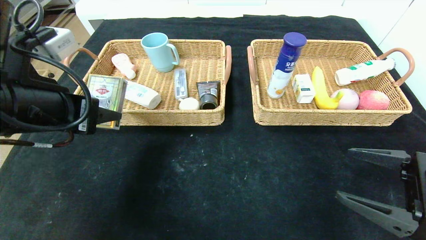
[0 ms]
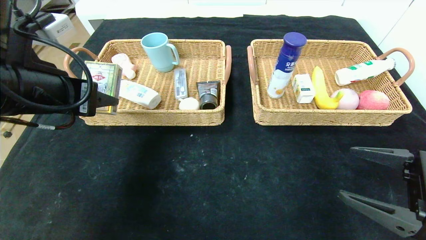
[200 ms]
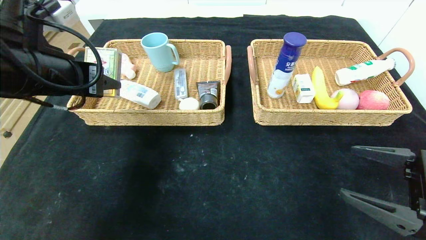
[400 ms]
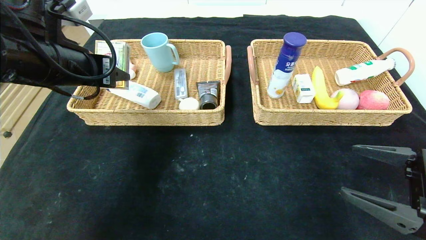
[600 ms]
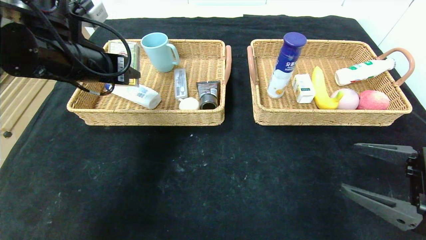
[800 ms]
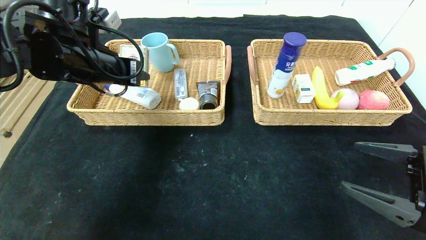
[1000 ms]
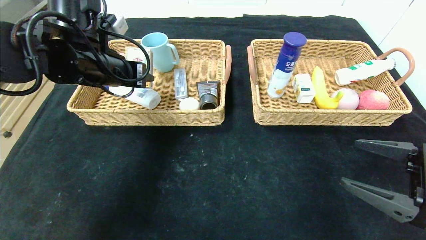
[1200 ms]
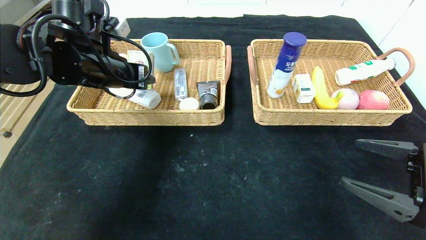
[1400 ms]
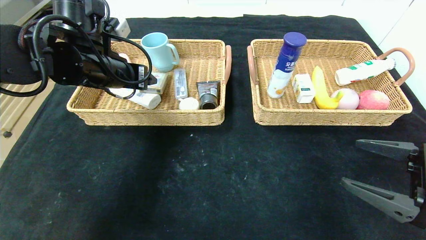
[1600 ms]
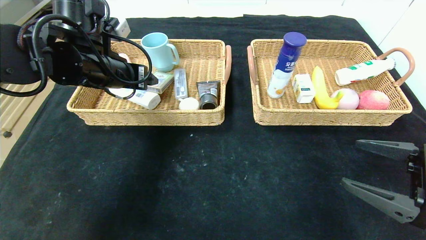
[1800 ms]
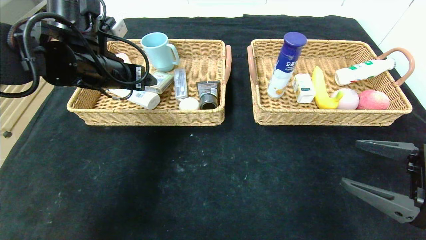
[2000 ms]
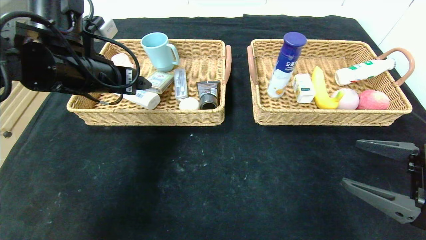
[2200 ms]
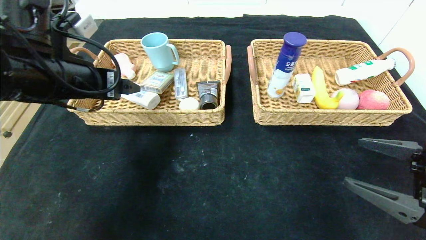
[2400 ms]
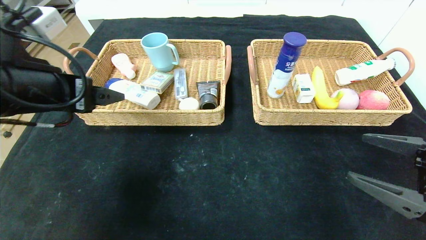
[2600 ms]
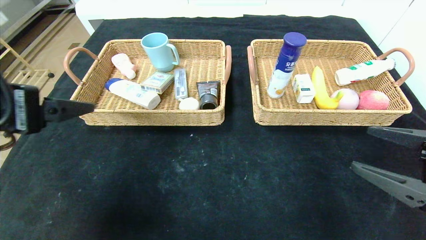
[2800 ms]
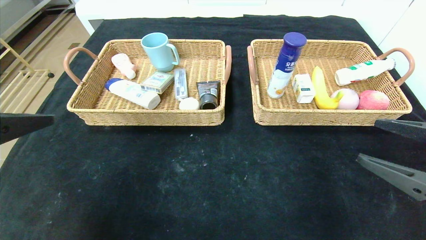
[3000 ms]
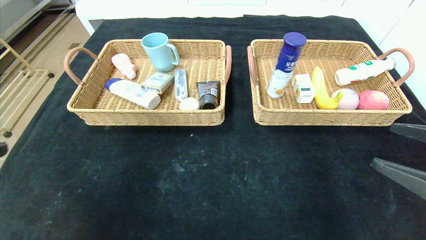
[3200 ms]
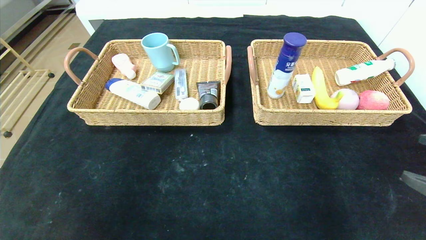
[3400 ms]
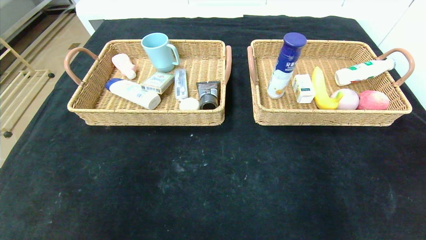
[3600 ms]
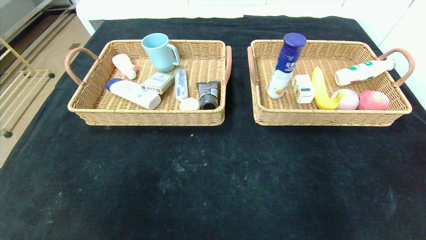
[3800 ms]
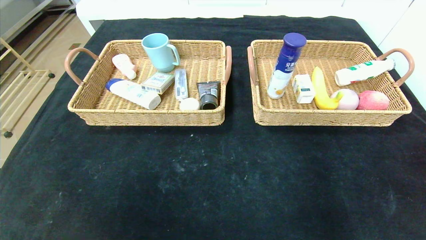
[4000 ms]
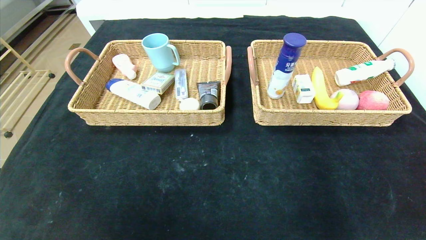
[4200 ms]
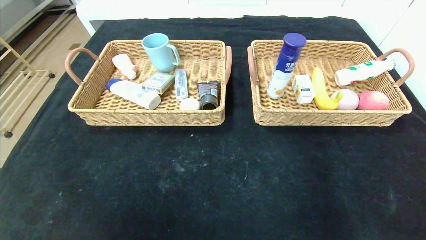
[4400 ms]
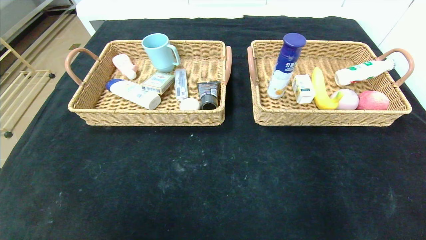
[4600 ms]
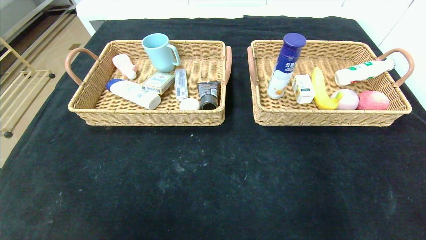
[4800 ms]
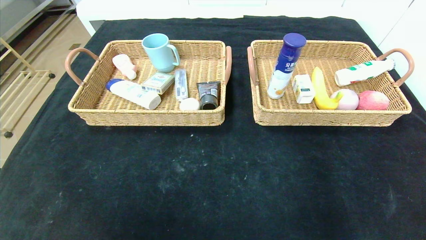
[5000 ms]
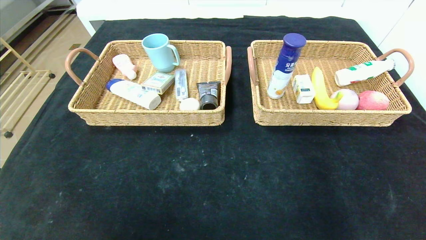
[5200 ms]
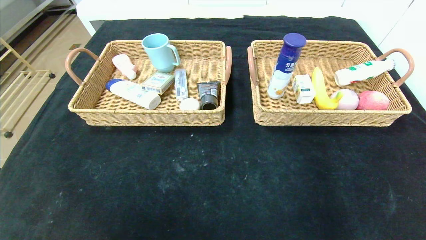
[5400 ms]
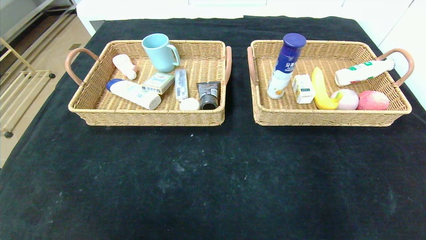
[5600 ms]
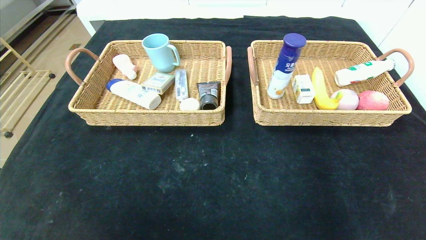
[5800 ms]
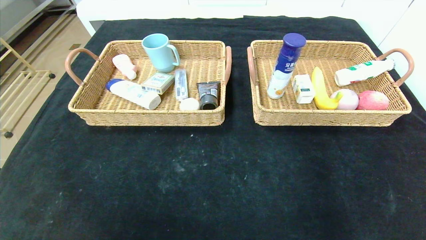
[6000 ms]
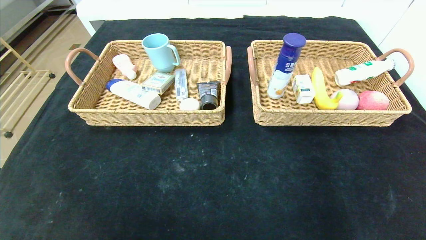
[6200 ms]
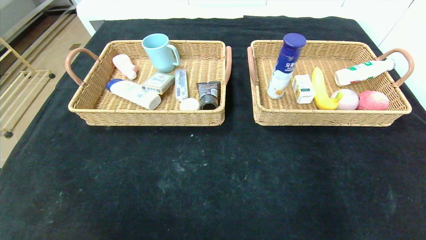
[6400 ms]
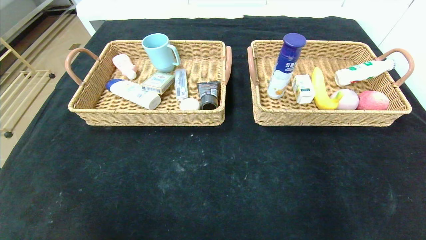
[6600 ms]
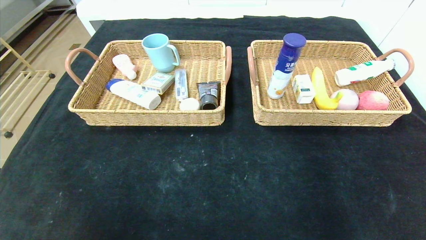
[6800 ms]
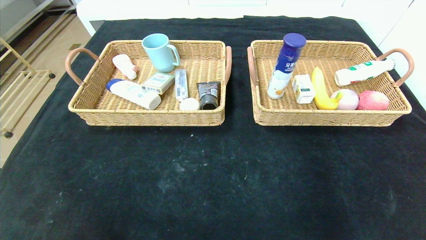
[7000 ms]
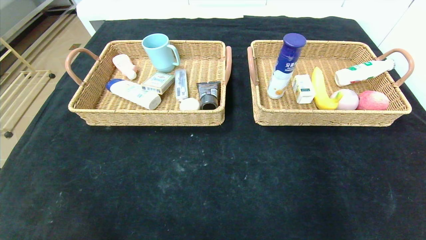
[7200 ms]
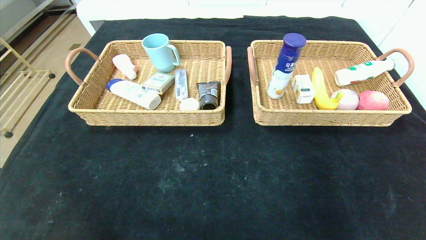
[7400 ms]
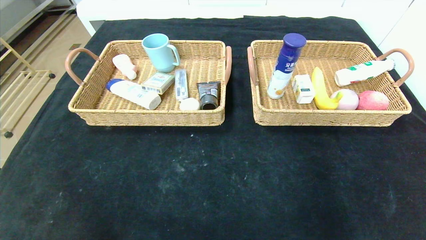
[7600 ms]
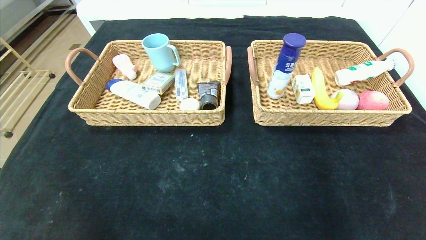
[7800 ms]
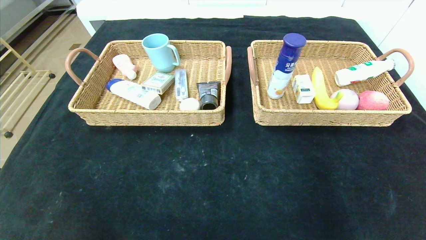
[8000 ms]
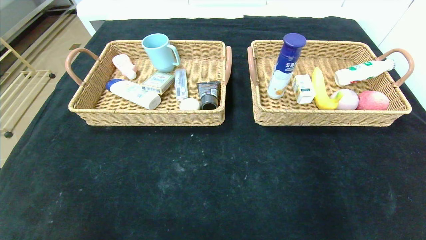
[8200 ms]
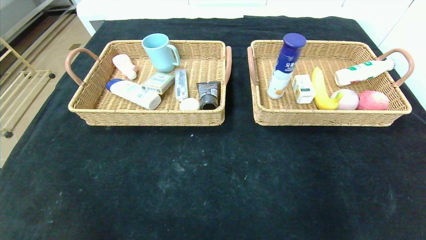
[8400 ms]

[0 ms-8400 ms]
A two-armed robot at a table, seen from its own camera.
Step, 0 ms to 4000 ms: Pick up the playing cards and put it in the left basket.
0 ms to 1400 ms: The left gripper heads forward, covering roughly 15 cm.
1400 ms to 2800 ms: The left gripper moves backward, about 20 cm, and opens.
2800 ms to 4200 ms: The right gripper moves backward, approximately 15 cm; the left gripper shifts some 25 cm backward.

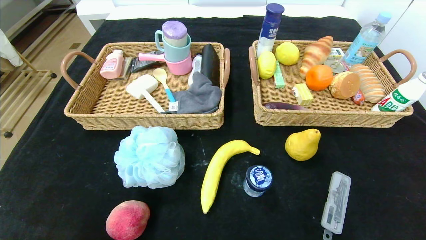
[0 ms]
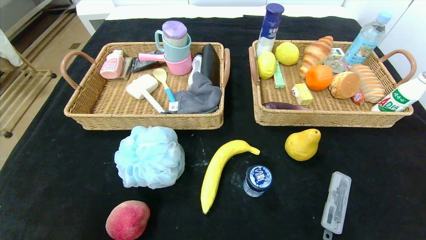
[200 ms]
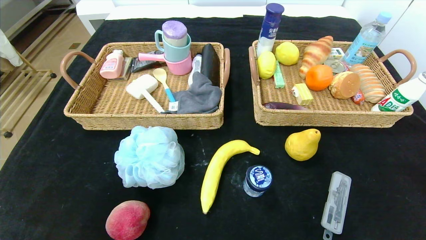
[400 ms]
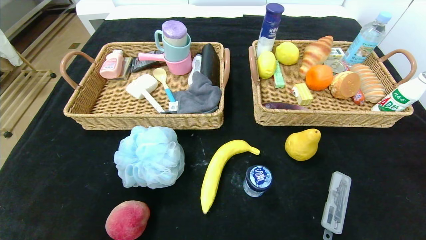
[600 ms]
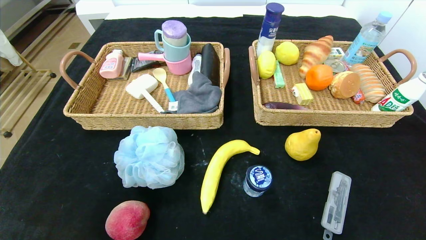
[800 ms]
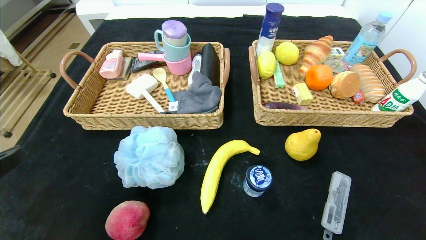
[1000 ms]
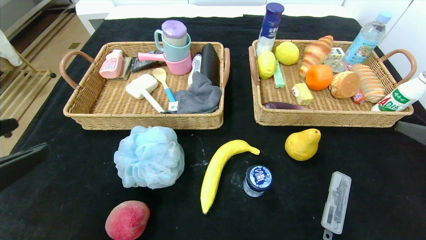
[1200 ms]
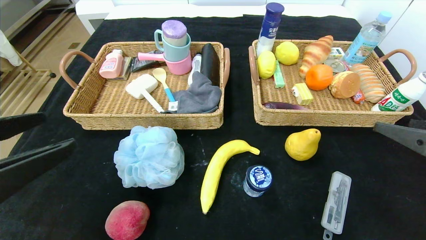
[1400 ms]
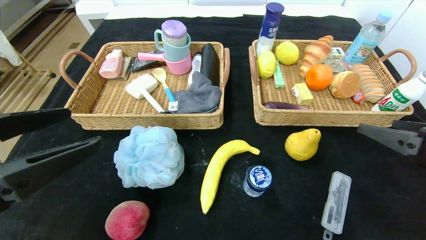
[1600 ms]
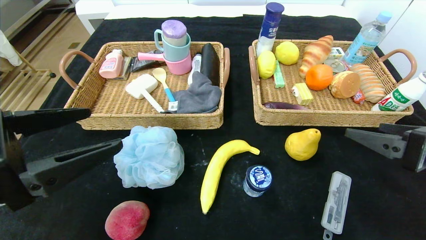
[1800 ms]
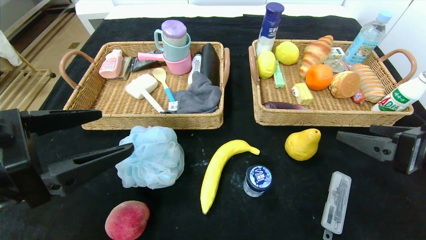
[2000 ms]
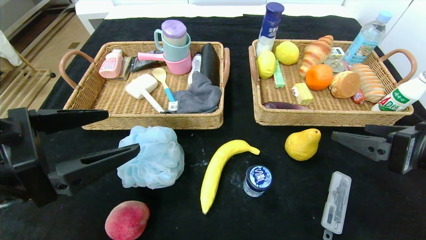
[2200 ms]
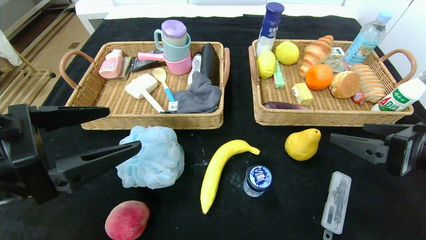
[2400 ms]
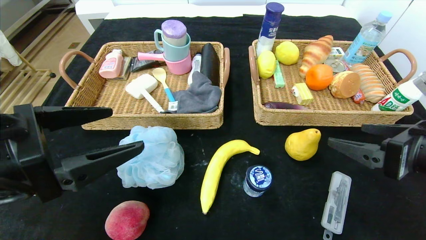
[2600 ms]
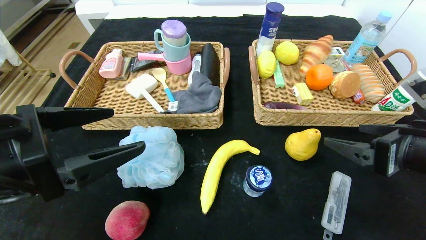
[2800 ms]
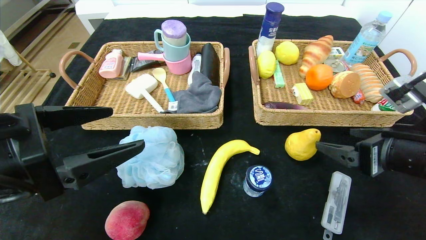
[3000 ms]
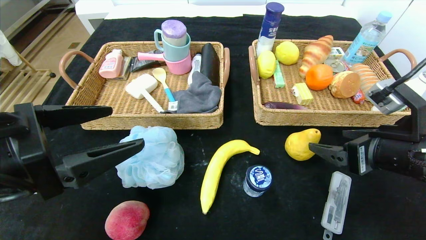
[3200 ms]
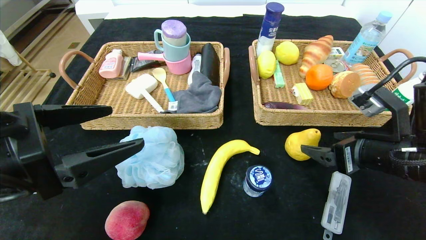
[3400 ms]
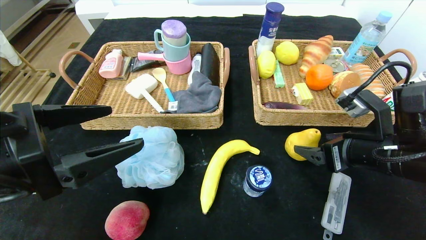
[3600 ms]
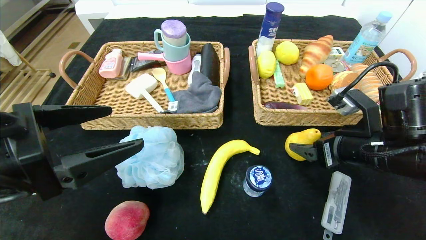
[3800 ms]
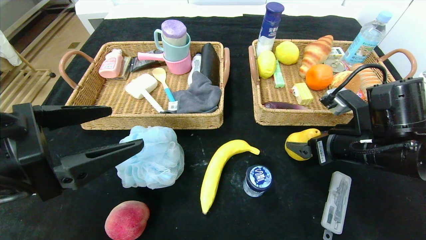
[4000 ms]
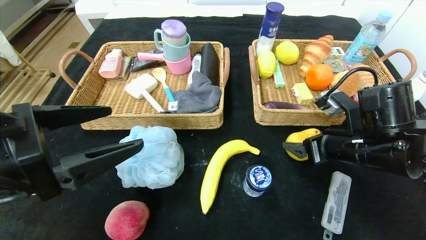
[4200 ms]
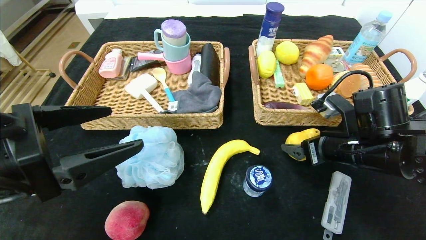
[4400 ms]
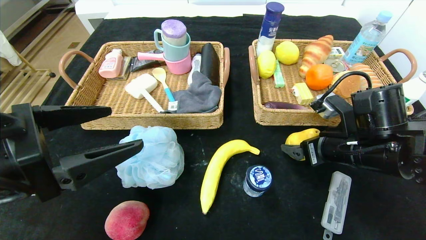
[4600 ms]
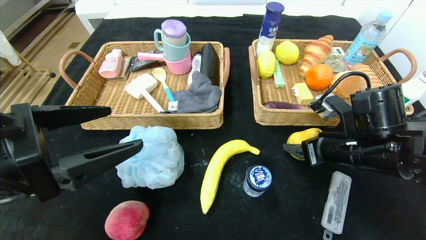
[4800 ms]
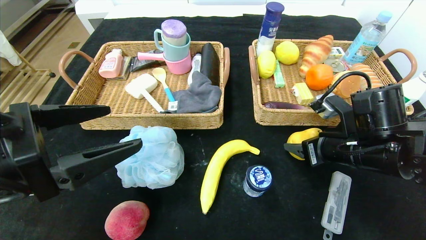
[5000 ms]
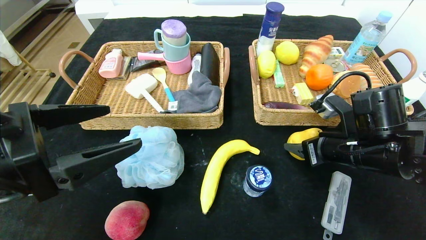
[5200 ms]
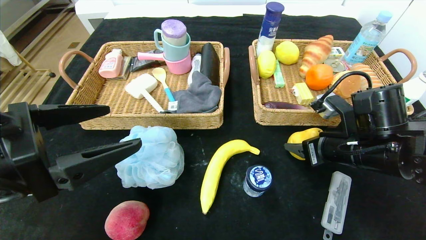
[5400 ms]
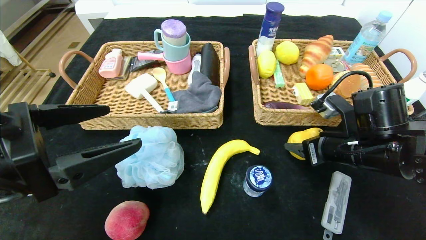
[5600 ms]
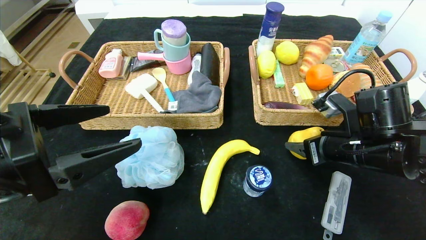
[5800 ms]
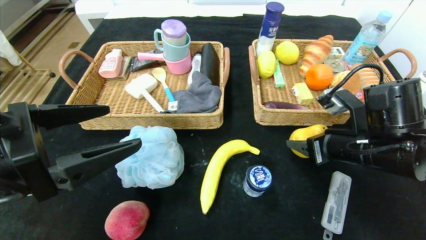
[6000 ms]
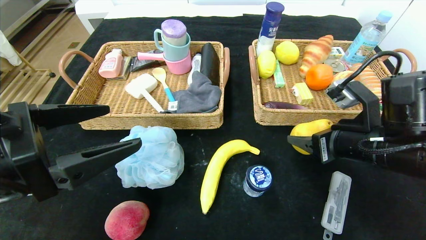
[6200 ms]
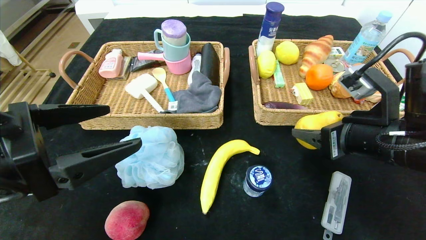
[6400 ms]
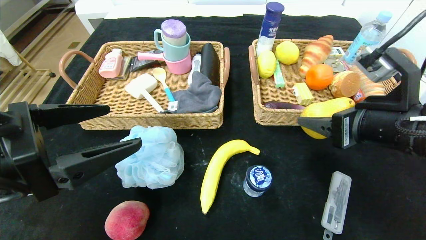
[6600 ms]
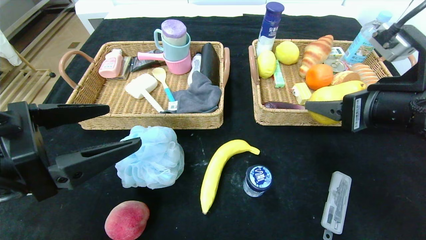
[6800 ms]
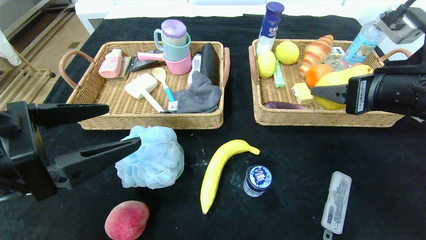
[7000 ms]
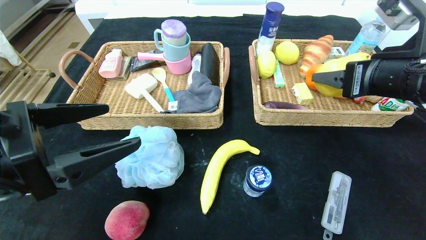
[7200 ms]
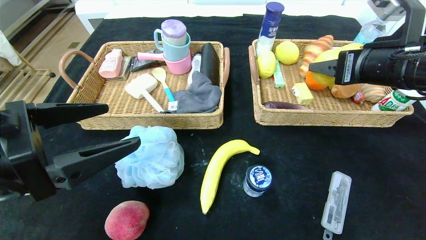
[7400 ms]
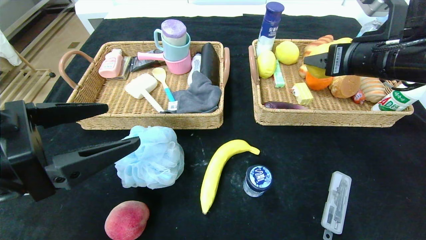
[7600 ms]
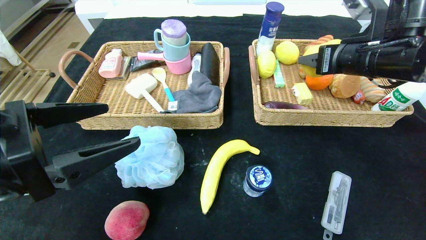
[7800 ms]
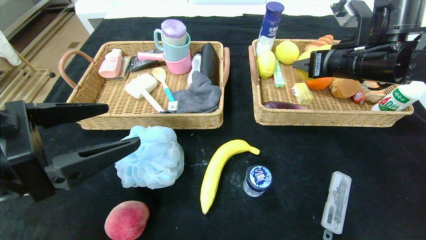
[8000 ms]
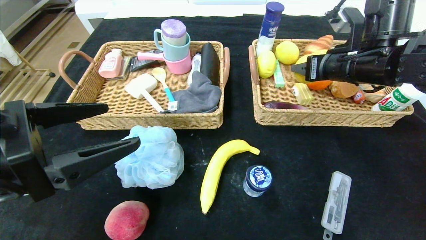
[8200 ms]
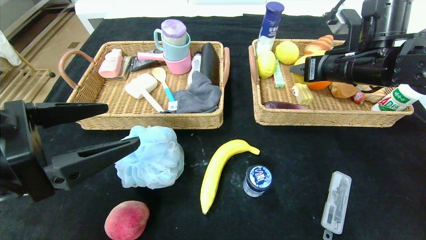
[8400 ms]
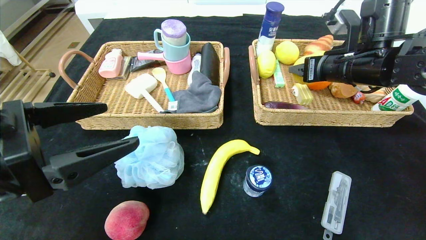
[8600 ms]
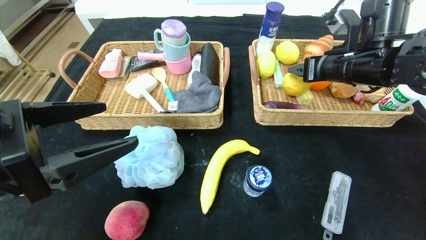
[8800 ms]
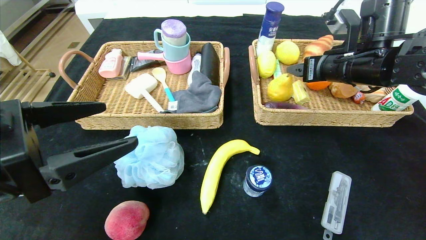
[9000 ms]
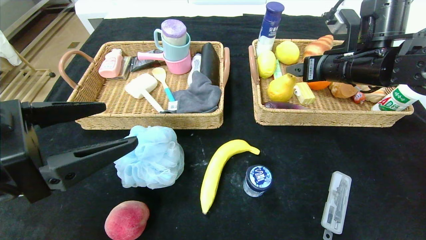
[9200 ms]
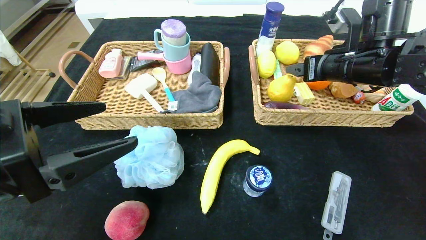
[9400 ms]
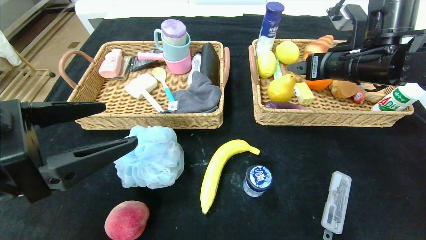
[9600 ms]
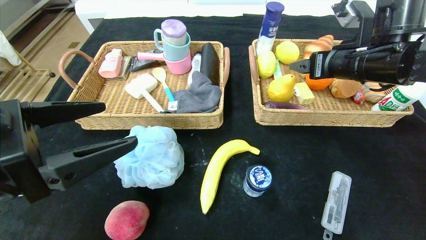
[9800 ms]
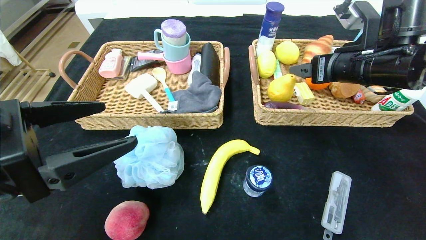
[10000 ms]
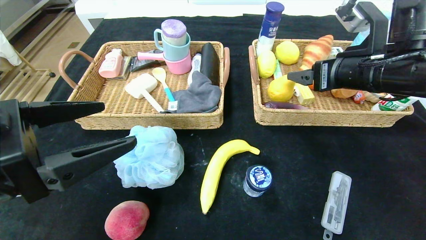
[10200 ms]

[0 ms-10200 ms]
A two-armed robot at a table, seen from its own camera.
Step, 0 ms to 9000 ms: Grasp the pear and put it in the right basket.
0 ms to 1400 ms: The left gripper is displaced upward and forward by some 20 cm, while the right gripper heads forward and upward, covering some 20 cm.
1400 ms to 3000 ms: The right gripper moves to the left, approximately 5 cm, while the left gripper moves about 5 cm.
3000 ms to 4400 ms: The right gripper heads forward, covering some 5 cm.
4400 ms to 5800 ms: The right gripper closes up.
5800 ms to 7200 ms: The right gripper goes some 10 cm upward.
7200 ms to 8800 ms: The right gripper moves forward, about 10 cm.
8800 ms to 10200 ms: The right gripper goes about 5 cm backward.
